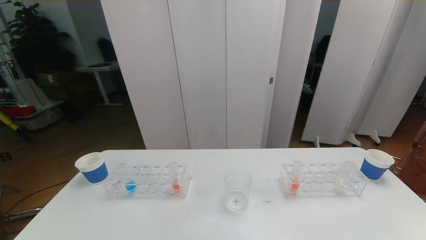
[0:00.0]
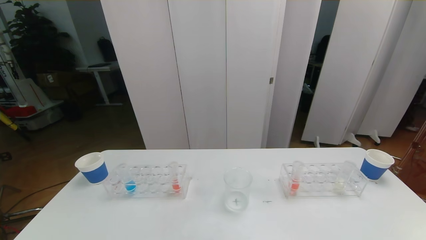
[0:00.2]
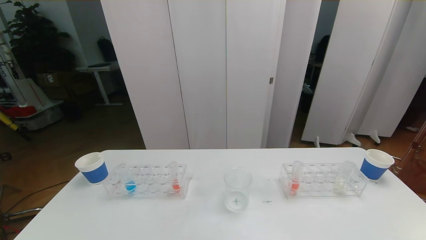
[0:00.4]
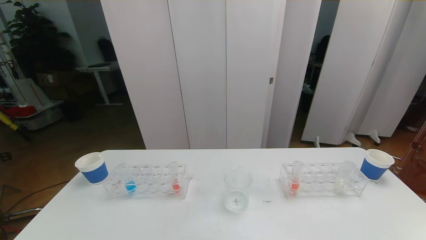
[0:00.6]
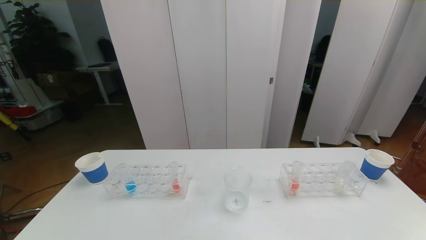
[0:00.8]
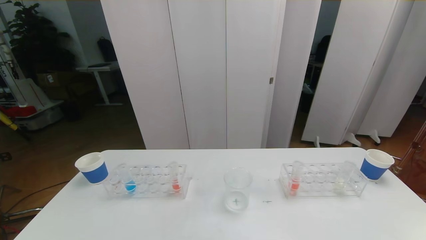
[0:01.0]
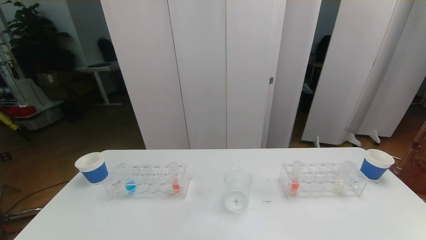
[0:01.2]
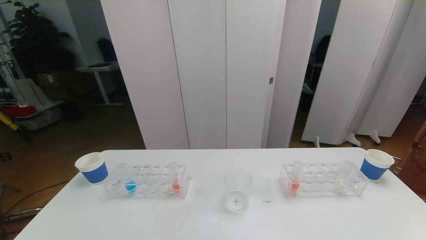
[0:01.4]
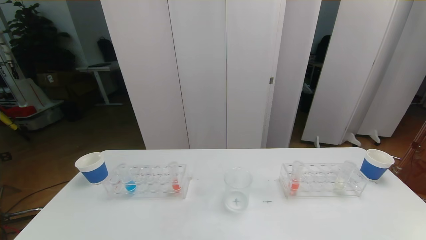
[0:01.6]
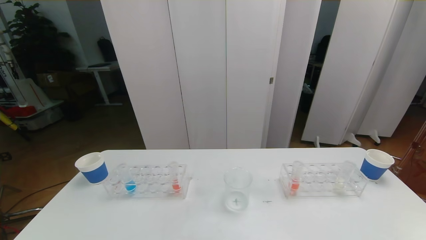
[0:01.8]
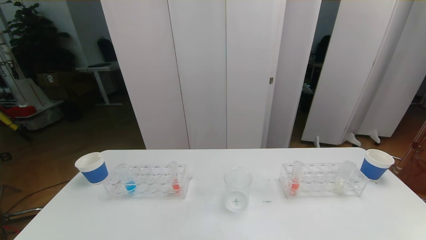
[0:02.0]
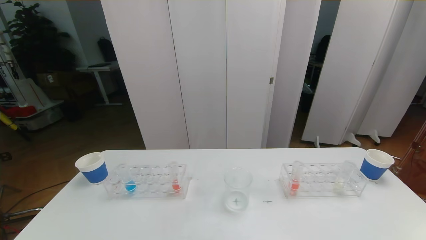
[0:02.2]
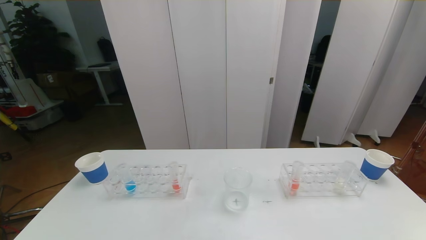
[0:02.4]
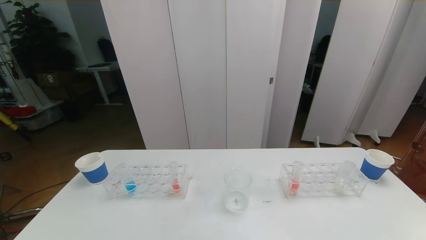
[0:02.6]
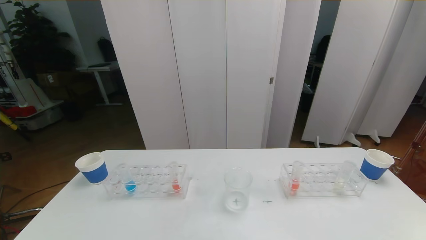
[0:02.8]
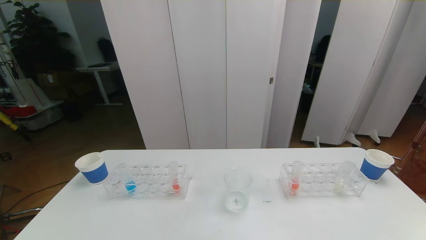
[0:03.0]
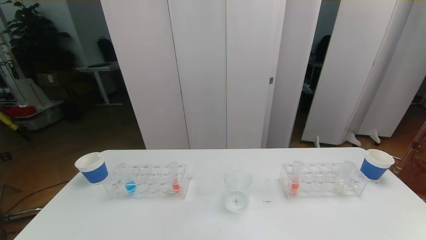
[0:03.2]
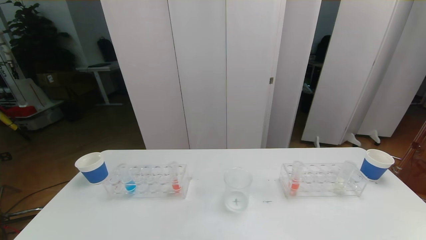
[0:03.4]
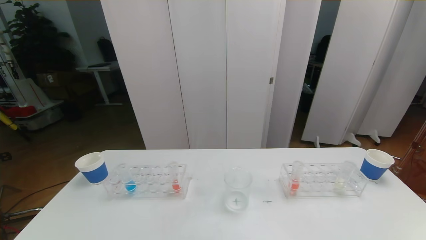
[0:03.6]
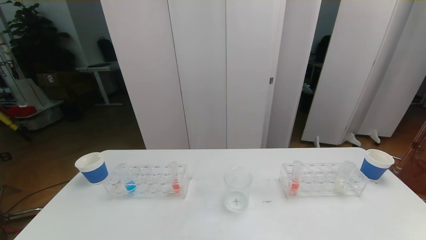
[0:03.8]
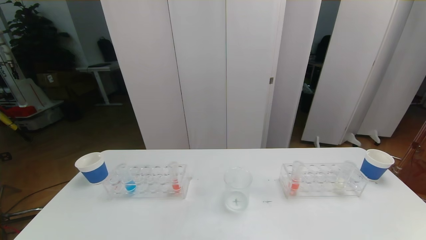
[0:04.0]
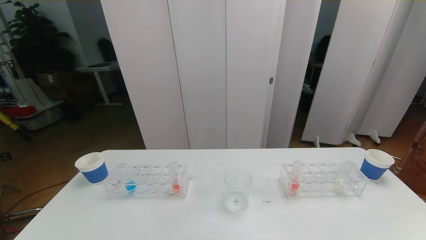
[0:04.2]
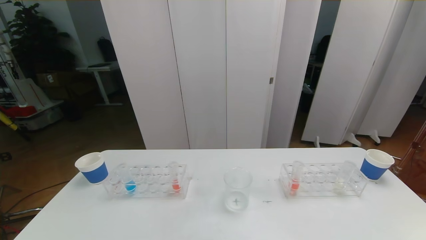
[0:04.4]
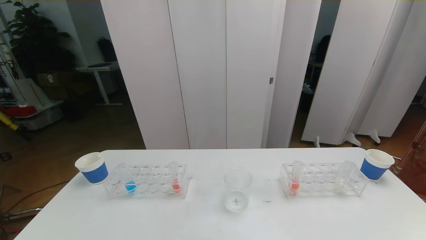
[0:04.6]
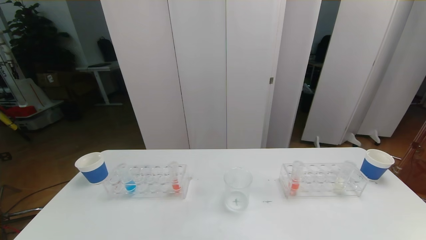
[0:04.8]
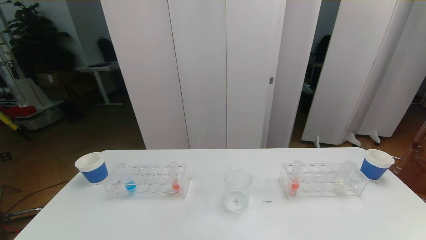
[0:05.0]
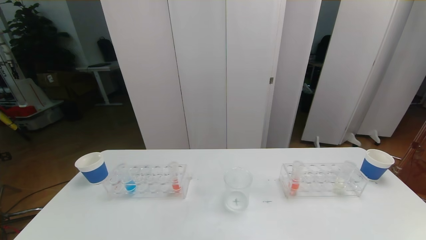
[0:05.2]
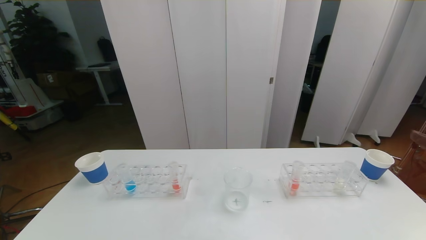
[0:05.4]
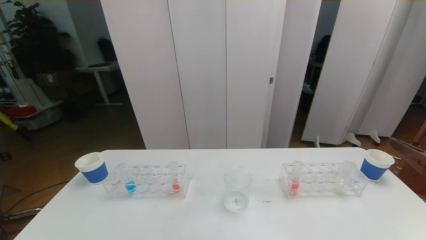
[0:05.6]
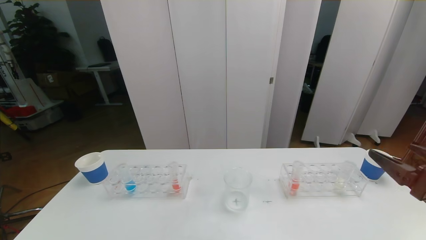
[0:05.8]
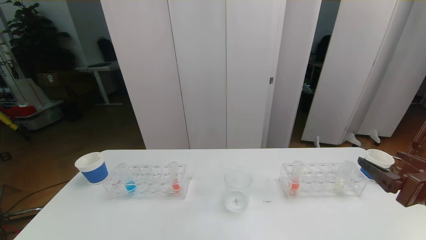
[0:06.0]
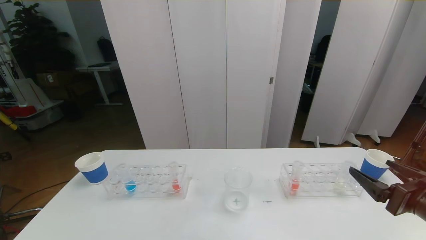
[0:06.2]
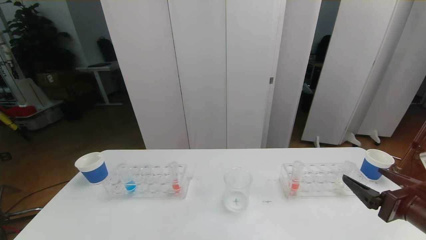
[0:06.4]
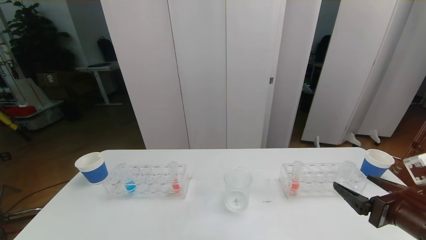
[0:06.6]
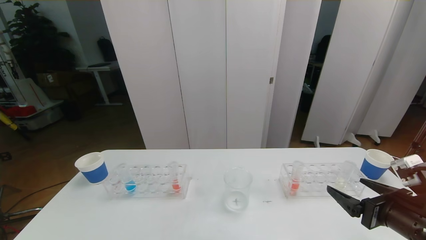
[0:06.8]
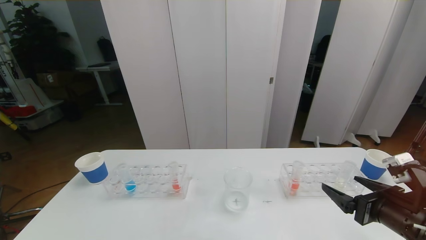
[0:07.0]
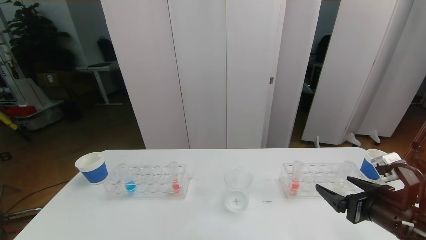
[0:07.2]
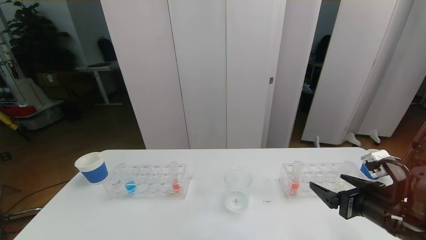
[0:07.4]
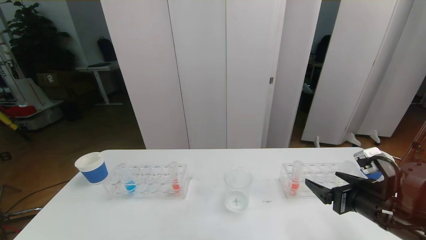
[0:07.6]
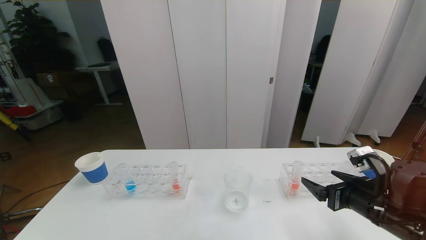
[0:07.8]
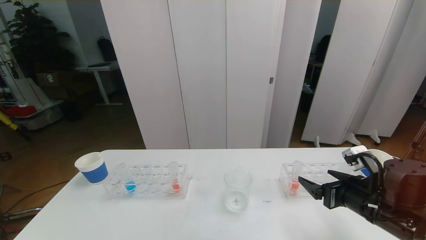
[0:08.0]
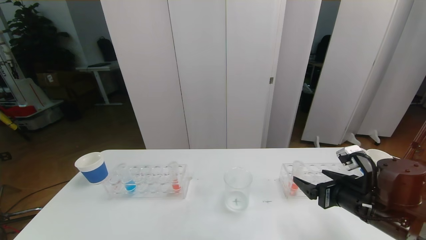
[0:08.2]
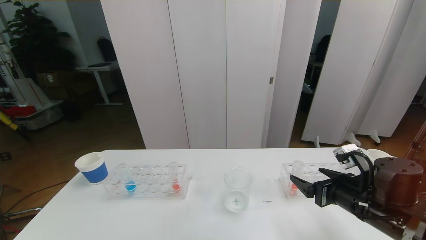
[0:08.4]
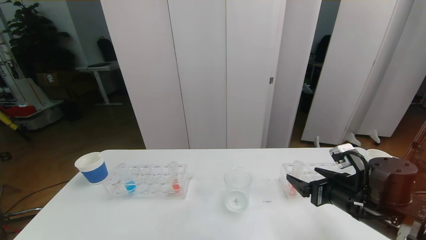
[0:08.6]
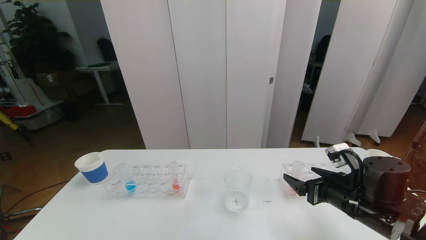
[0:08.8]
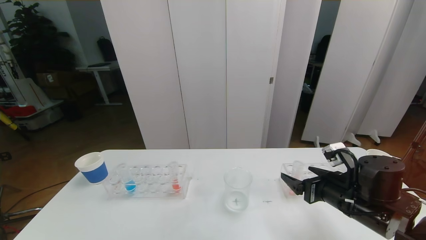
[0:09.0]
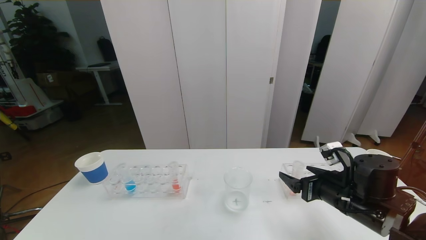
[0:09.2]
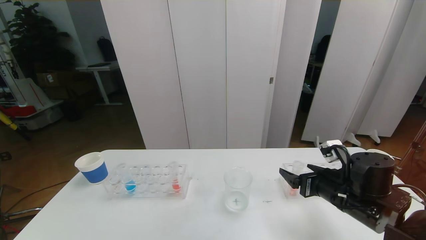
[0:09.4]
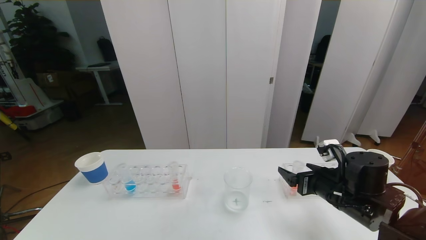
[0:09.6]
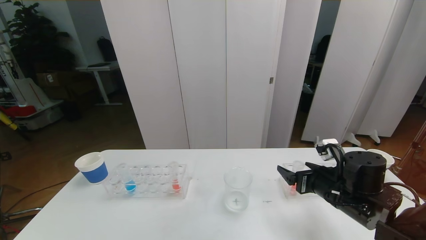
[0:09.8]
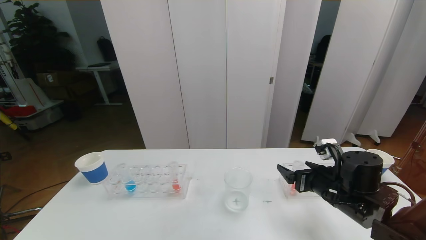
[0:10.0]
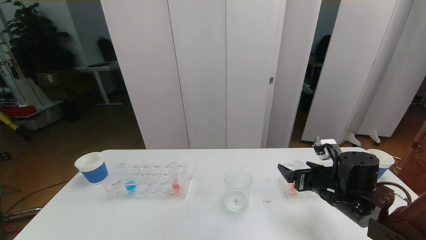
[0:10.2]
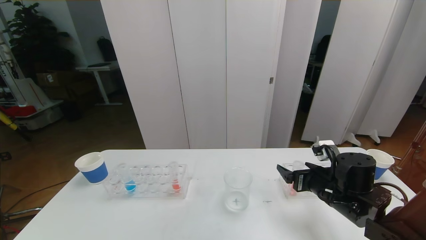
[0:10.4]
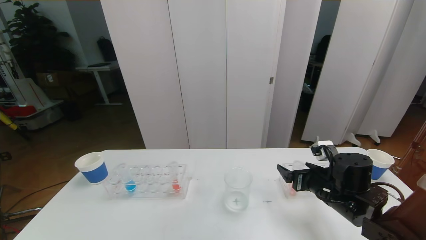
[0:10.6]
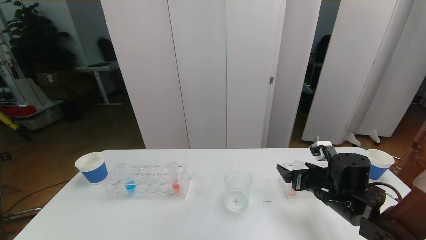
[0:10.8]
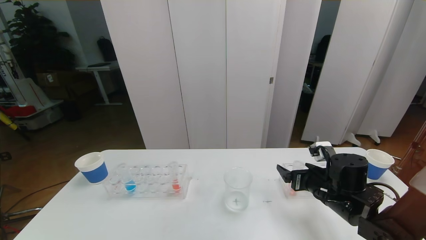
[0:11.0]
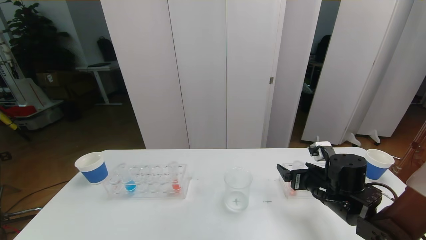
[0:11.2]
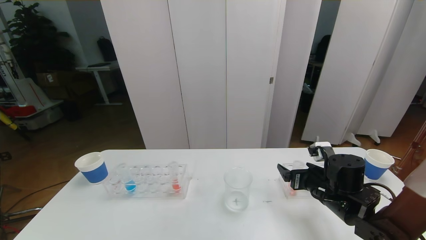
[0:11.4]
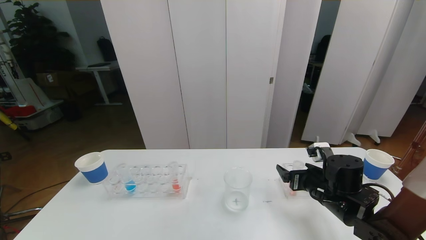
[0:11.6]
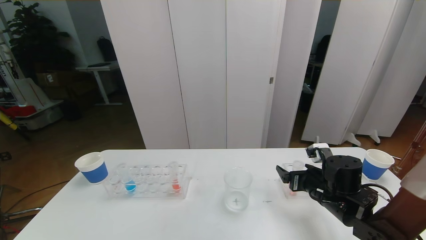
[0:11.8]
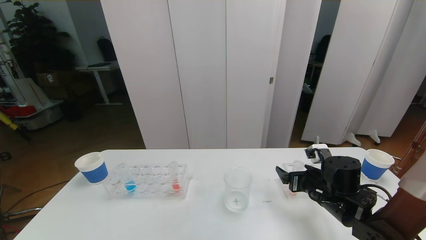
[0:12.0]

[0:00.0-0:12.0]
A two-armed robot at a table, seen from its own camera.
Task of the whole recording: pick up the test tube with red pigment the test tube with blue pigment and the test tube with white pigment by grippers and pour them into the beaker.
0:00.0 to 0:03.0: Both grippers stay about where they are.
0:04.4 to 0:06.0: The right gripper shifts approximately 15 cm forward.
0:06.0 to 0:07.6: The right gripper heads downward and forward, covering approximately 10 cm.
0:07.6 to 0:09.0: The right gripper ends up some 5 cm from where it was.
0:09.0 to 0:12.0: The grippers stay close to where they were, moving slightly.

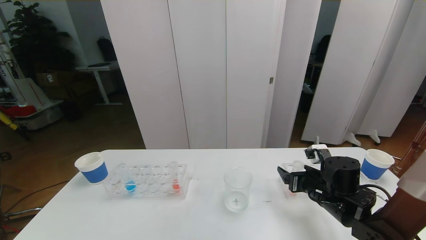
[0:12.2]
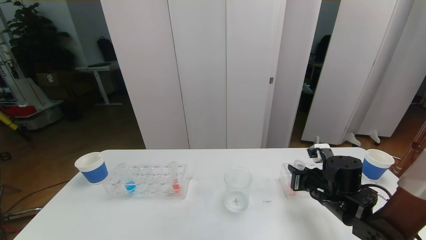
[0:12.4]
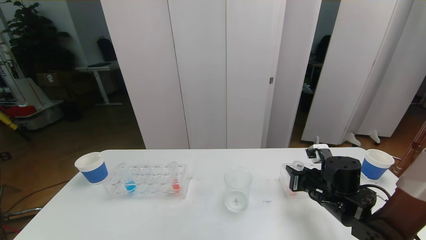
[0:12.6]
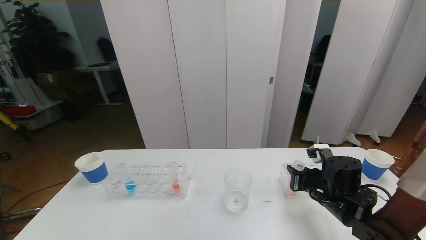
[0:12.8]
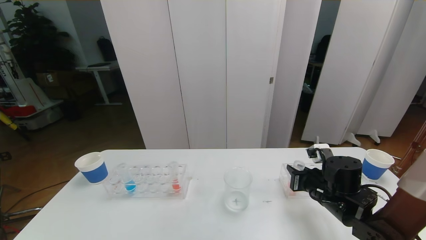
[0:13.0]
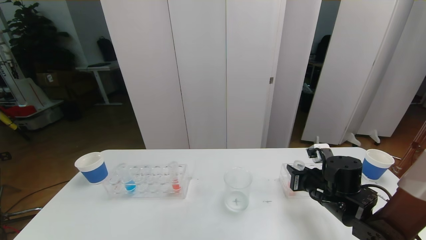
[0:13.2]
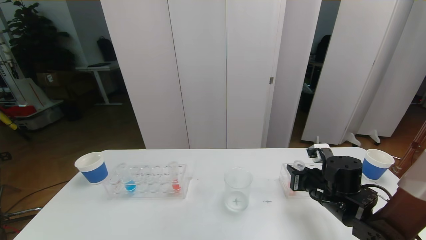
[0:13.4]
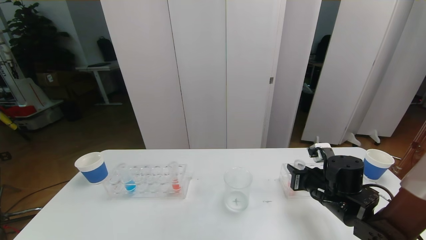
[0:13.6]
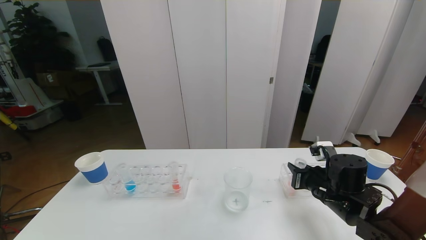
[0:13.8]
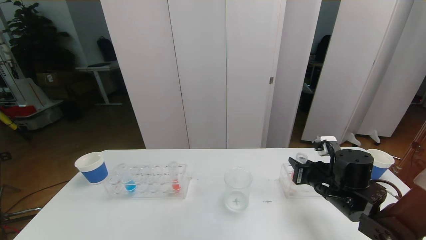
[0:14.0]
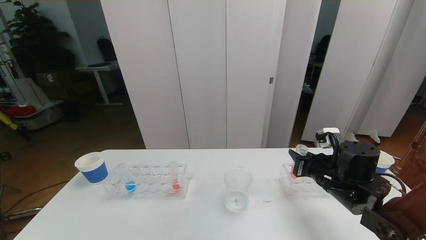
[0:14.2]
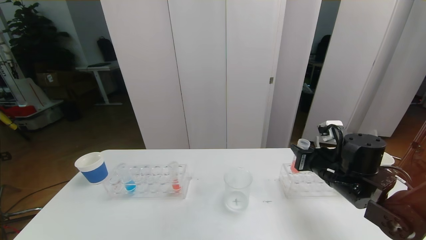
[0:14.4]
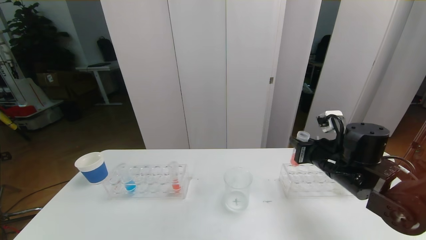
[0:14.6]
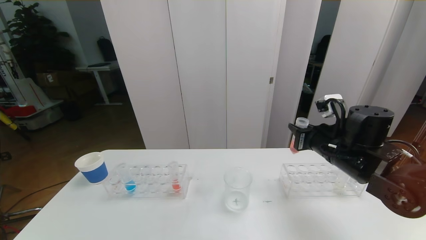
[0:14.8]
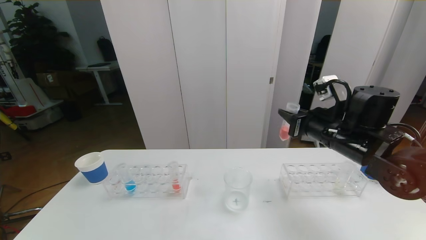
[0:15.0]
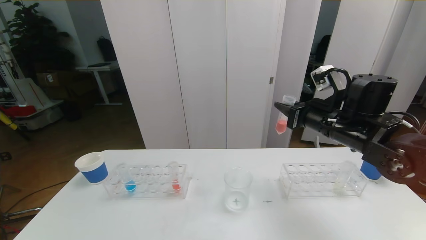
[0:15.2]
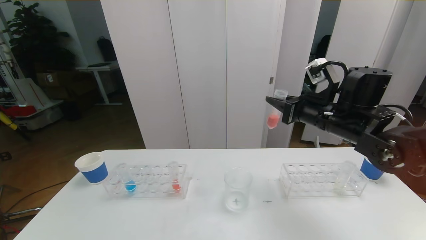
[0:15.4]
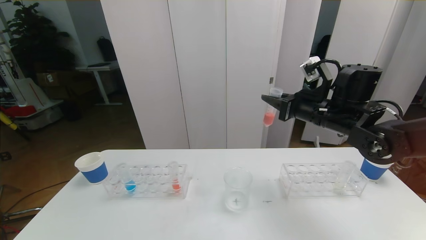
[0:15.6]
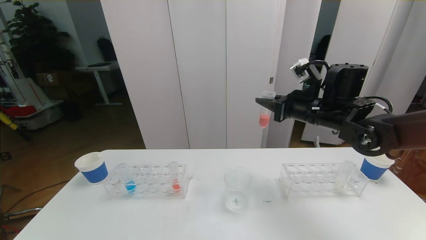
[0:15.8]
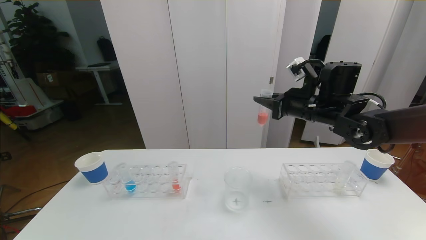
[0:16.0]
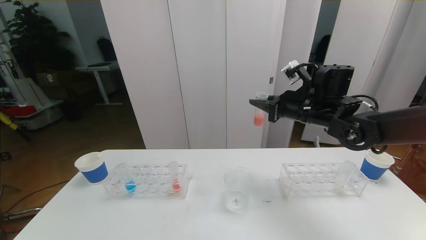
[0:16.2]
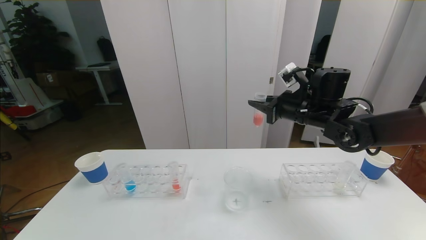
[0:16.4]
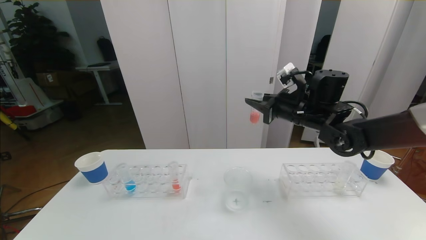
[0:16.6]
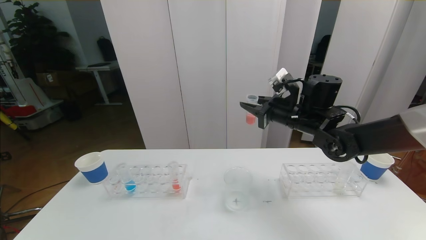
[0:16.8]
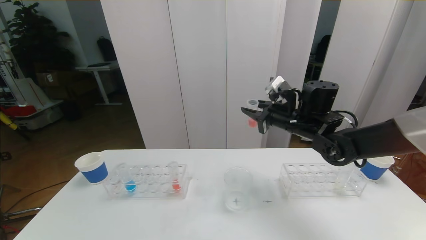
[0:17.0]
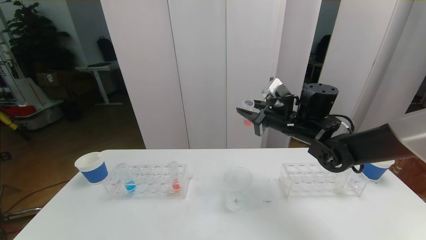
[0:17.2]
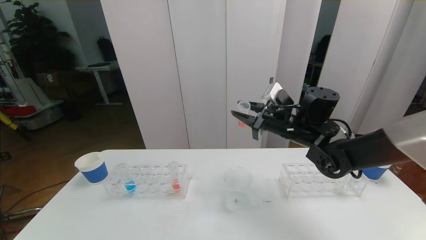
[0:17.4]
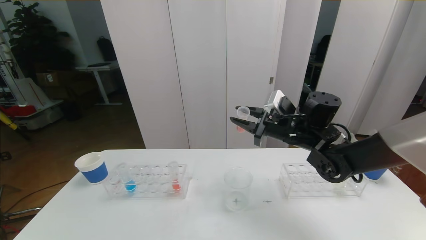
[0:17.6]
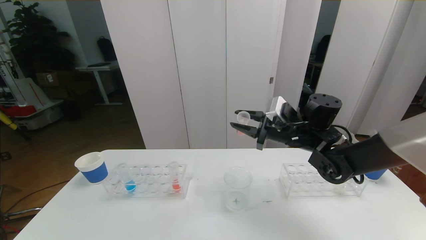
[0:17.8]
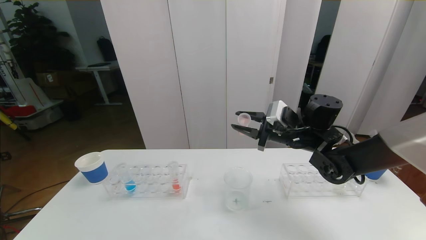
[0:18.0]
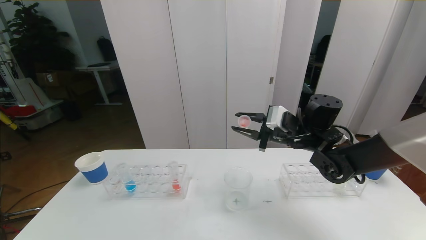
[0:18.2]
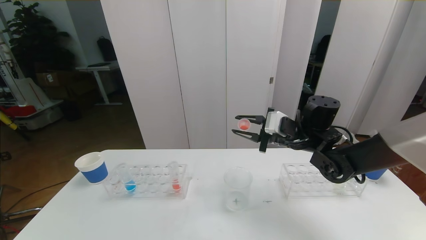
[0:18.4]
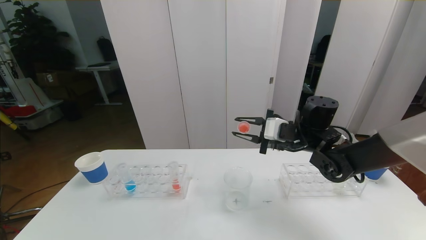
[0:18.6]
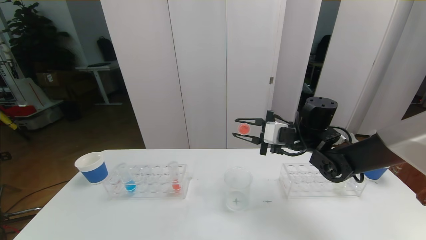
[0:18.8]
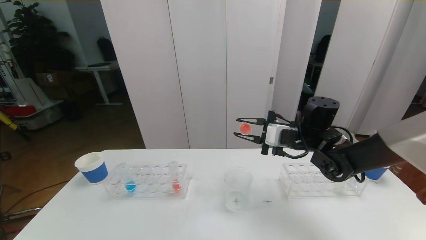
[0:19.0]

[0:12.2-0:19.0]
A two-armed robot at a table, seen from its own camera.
Task of the whole recording: pick up the test tube with red pigment the test tube with blue pigment and the test tube with white pigment by grippers and pour them into the beaker.
0:12.2 to 0:13.6: The right gripper closes its fingers.
0:13.6 to 0:15.0: The right gripper shifts about 15 cm upward.
0:15.0 to 0:16.2: The right gripper heads forward, covering roughly 5 cm.
0:16.2 to 0:17.6: The right gripper shifts by approximately 5 cm.
